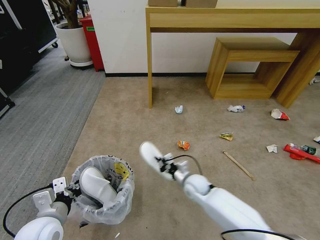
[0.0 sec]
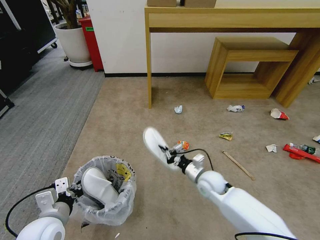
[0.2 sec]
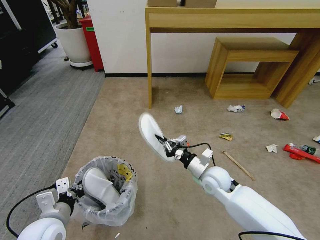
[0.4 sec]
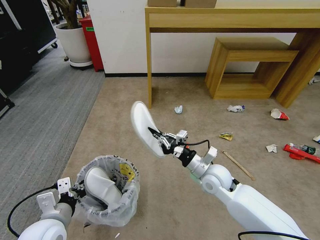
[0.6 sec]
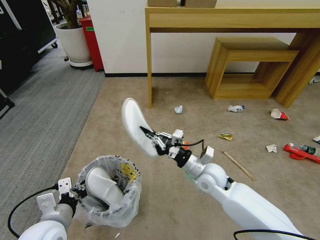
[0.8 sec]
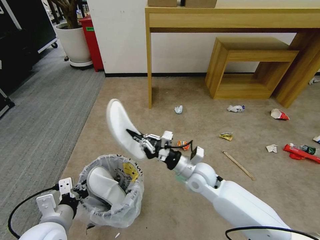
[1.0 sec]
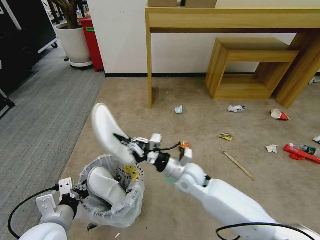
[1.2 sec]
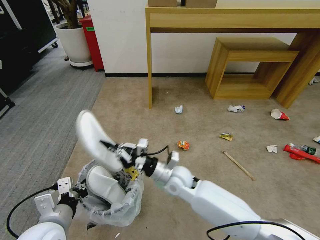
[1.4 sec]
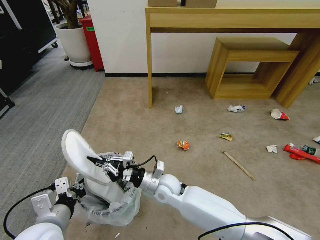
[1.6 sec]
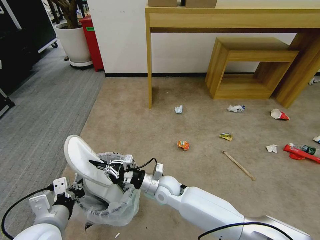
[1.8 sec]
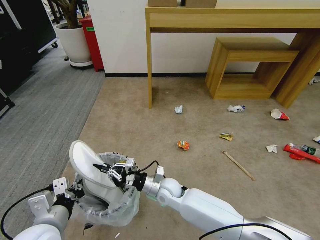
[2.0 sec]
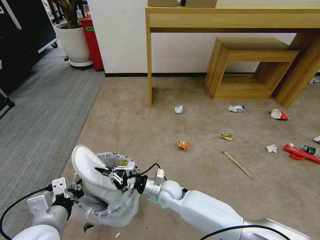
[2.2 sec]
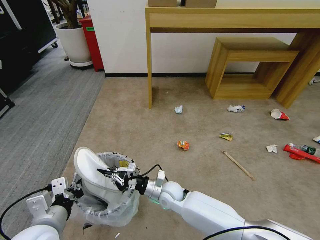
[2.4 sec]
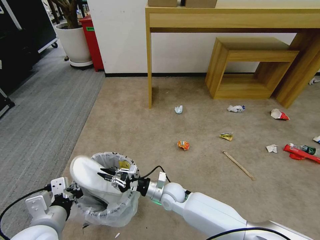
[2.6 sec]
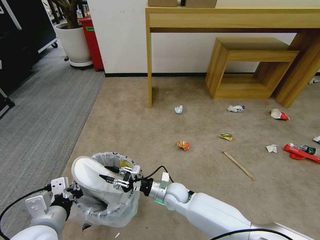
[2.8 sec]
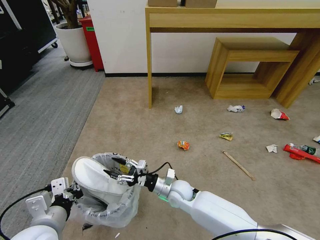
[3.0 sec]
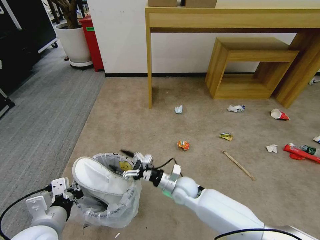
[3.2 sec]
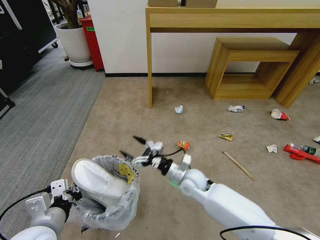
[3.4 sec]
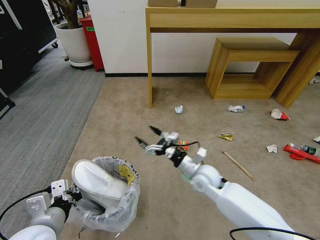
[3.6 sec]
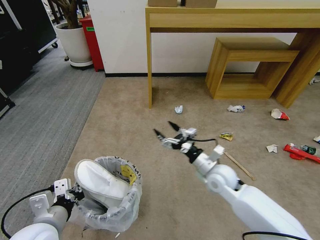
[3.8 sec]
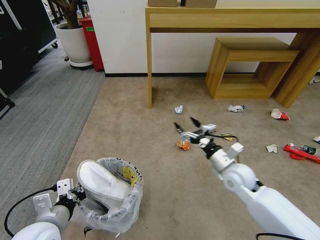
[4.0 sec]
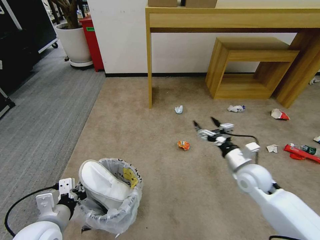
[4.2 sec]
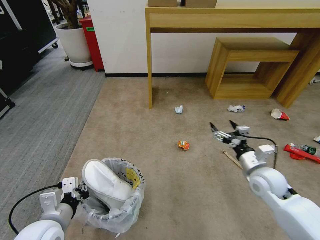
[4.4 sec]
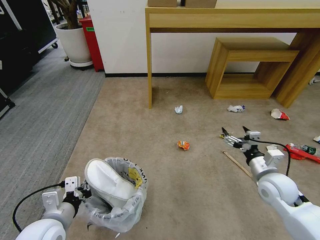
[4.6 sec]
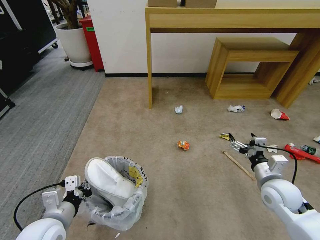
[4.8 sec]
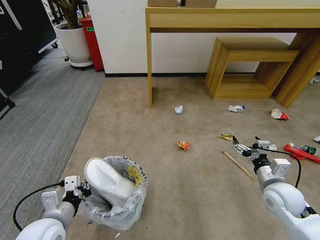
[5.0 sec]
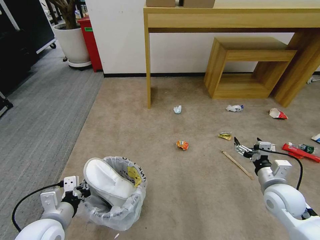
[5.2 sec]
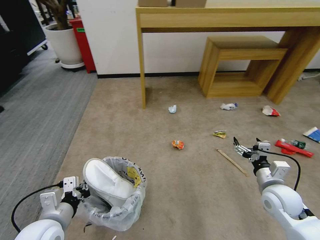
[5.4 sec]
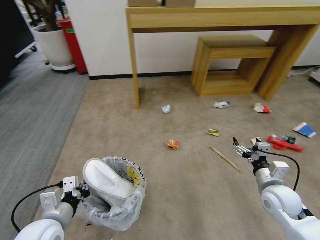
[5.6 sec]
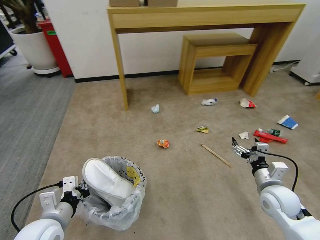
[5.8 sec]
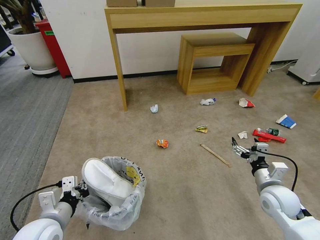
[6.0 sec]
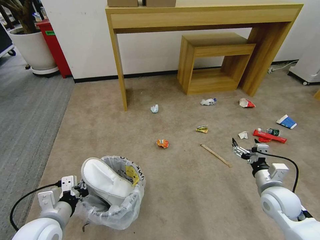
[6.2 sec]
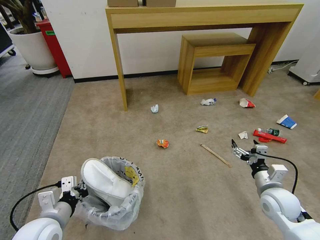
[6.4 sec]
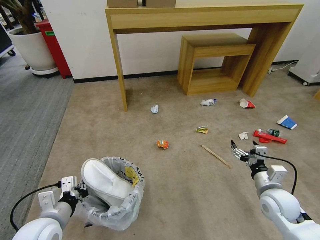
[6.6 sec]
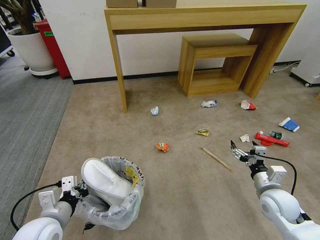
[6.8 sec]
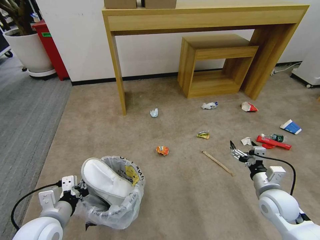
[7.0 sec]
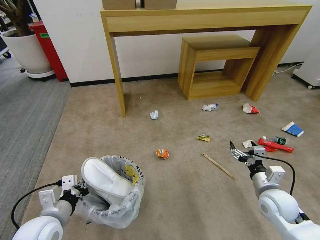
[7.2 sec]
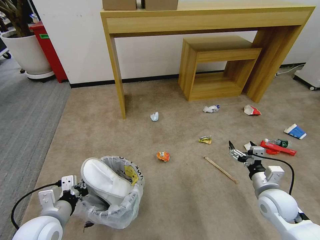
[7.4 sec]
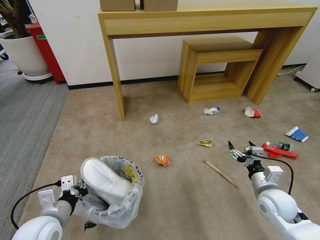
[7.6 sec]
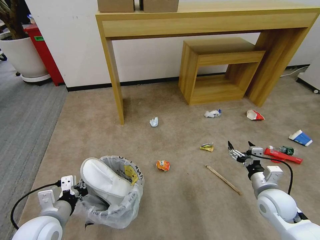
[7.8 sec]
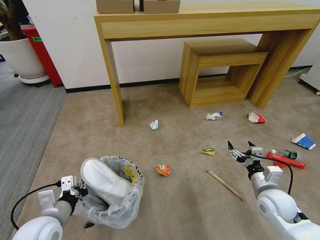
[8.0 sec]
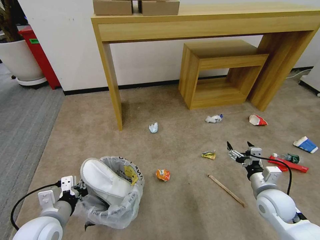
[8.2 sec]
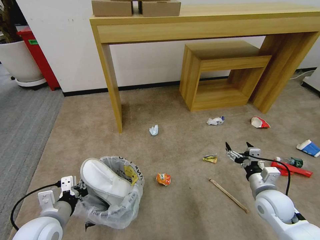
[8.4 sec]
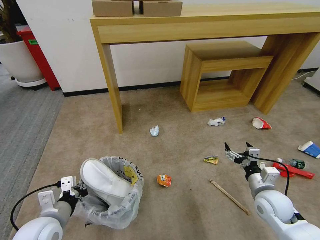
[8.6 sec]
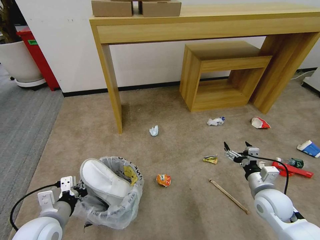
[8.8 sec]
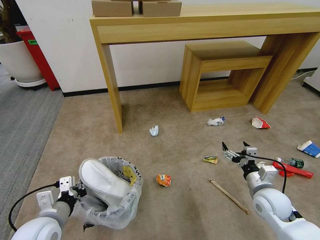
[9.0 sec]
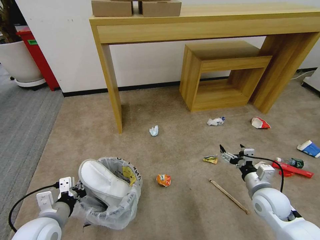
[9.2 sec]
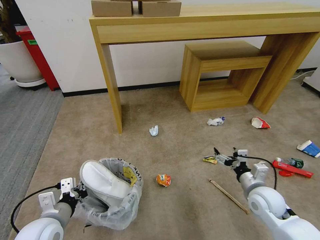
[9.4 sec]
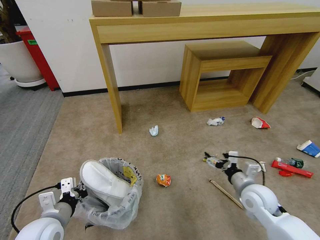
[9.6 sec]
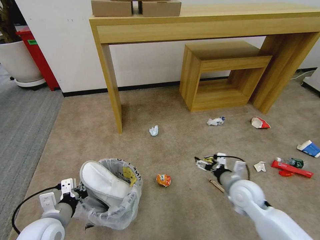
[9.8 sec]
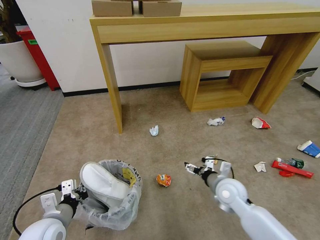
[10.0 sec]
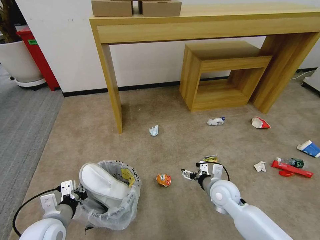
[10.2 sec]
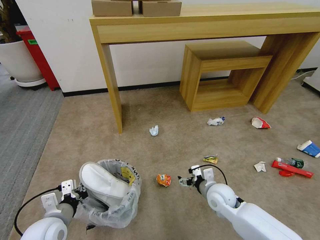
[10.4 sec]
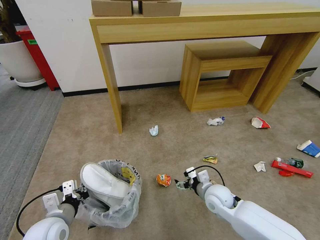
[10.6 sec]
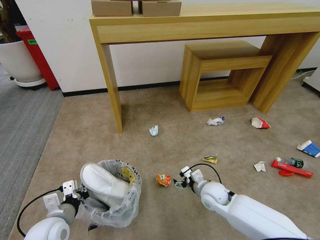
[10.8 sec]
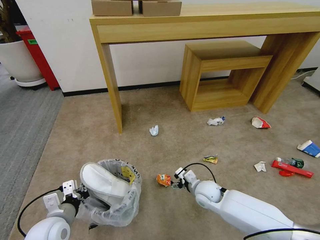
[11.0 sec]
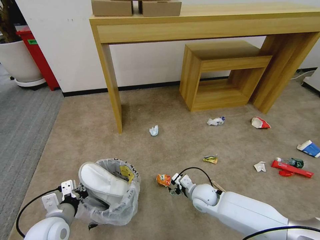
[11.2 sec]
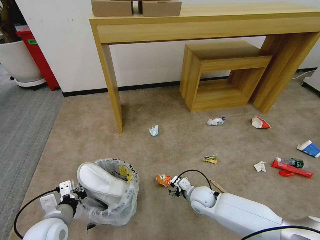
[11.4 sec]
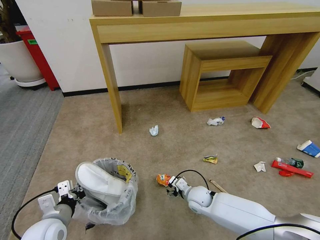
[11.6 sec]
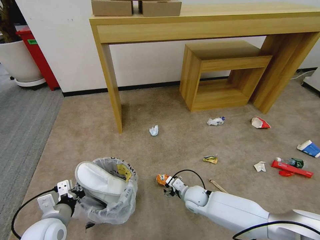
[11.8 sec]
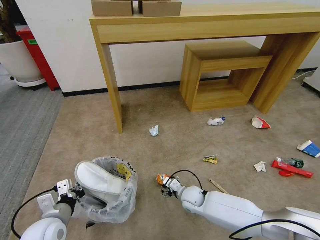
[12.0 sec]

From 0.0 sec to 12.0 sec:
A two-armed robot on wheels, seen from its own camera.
Task of the whole recording: Pick up the trash bin and place the garbage on the floor into it.
From 0.0 sec to 1.6 sec: The right gripper shifts about 15 cm to the left and upward.
From 1.6 sec to 3.0 sec: The right gripper goes approximately 5 cm downward, and opens its fingers.
From 3.0 sec to 4.4 sec: The right gripper shifts about 30 cm to the right and upward, and opens.
From 4.4 sec to 6.0 sec: The right gripper shifts by roughly 5 cm.
From 9.0 sec to 10.4 sec: The right gripper heads to the left, covering approximately 15 cm.
From 10.4 sec to 12.0 sec: The right gripper shifts approximately 15 cm downward and to the left.

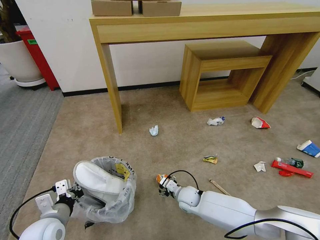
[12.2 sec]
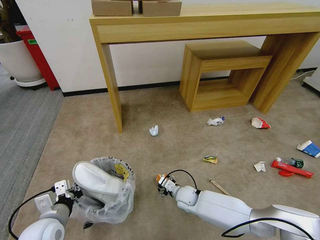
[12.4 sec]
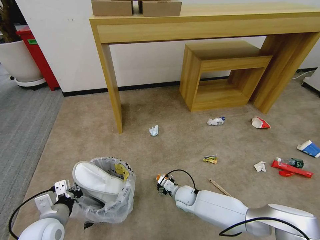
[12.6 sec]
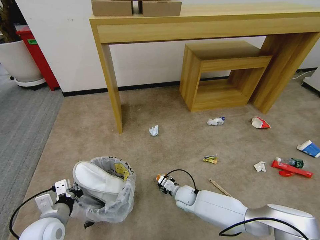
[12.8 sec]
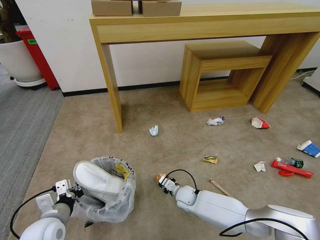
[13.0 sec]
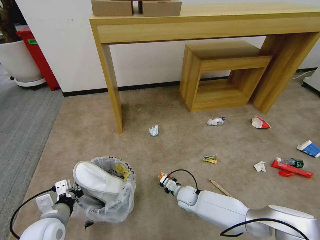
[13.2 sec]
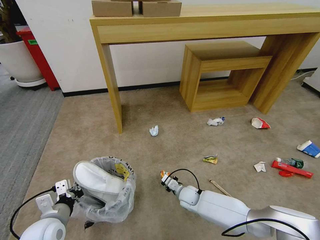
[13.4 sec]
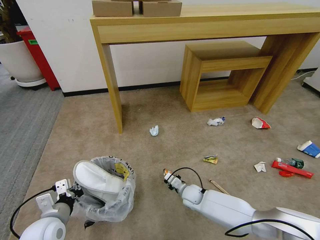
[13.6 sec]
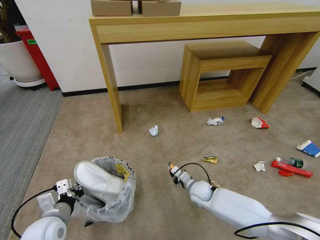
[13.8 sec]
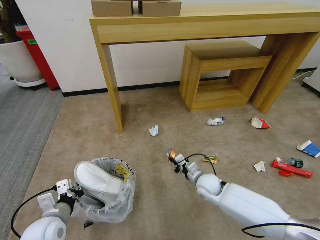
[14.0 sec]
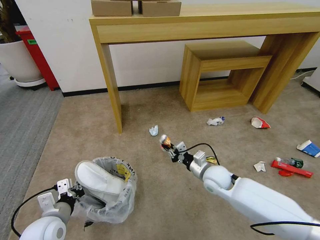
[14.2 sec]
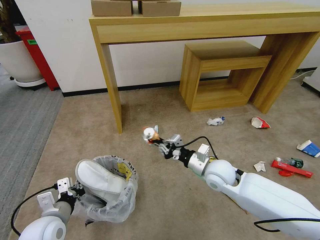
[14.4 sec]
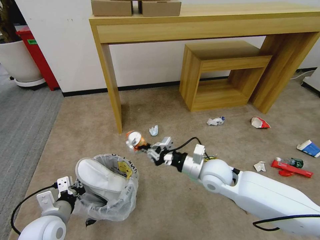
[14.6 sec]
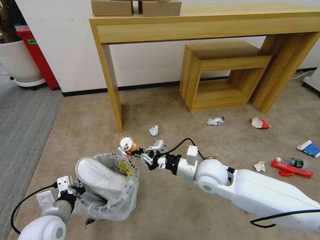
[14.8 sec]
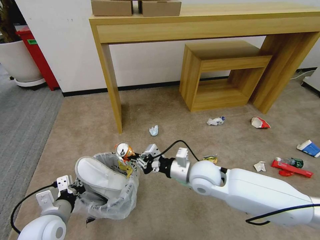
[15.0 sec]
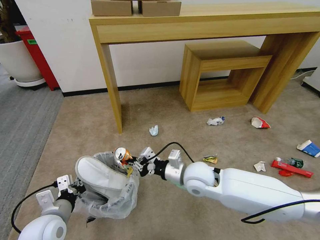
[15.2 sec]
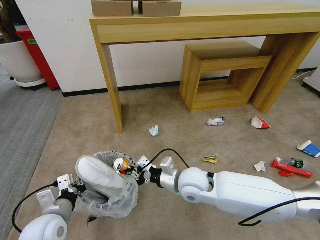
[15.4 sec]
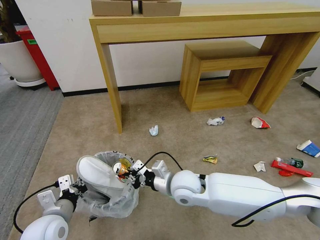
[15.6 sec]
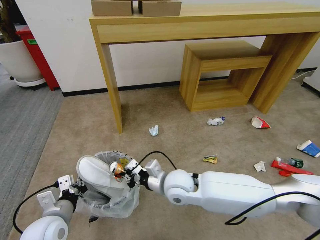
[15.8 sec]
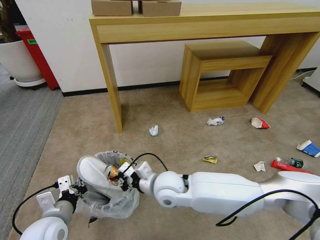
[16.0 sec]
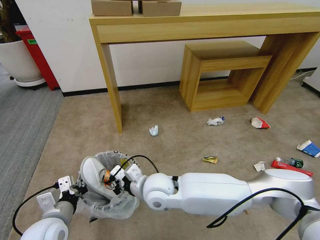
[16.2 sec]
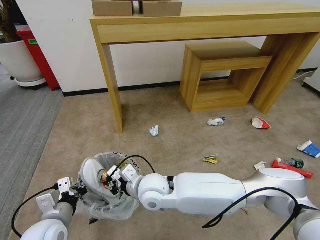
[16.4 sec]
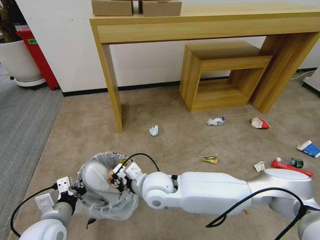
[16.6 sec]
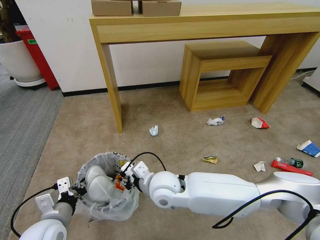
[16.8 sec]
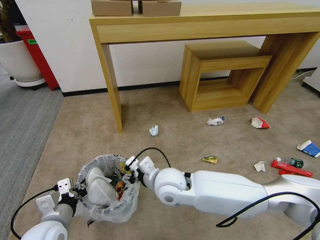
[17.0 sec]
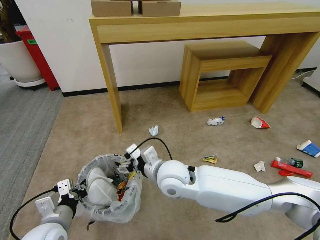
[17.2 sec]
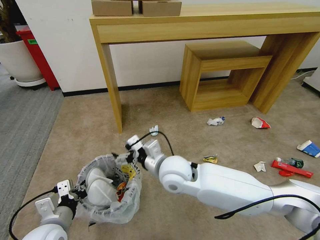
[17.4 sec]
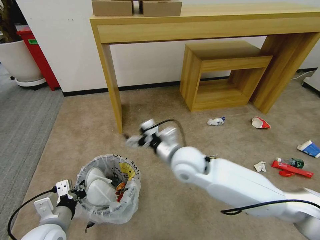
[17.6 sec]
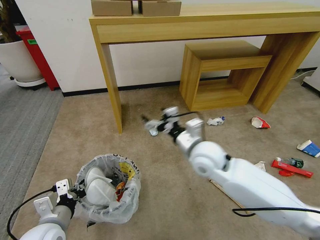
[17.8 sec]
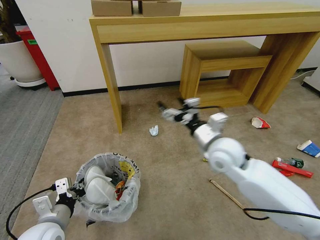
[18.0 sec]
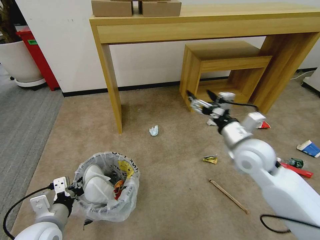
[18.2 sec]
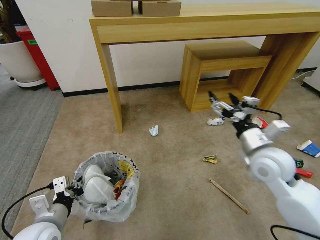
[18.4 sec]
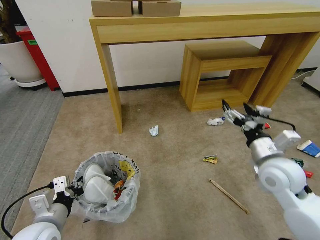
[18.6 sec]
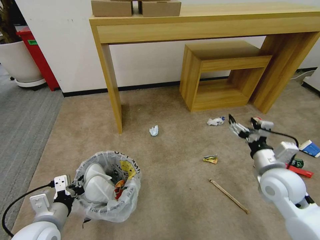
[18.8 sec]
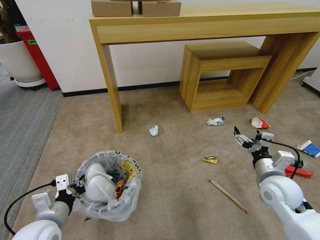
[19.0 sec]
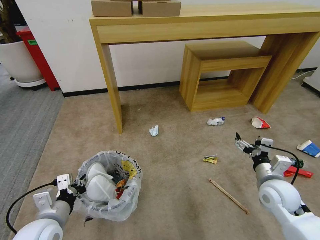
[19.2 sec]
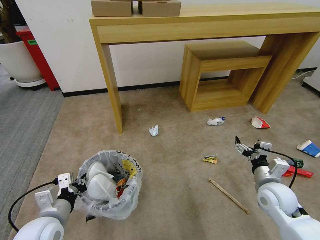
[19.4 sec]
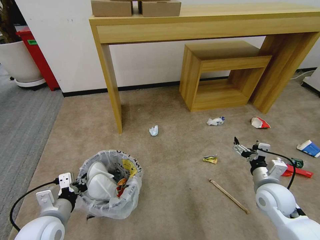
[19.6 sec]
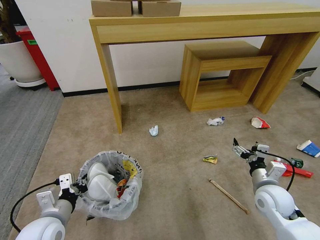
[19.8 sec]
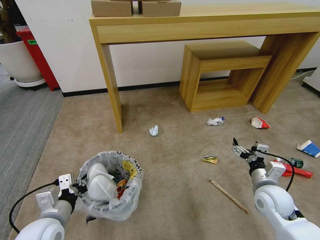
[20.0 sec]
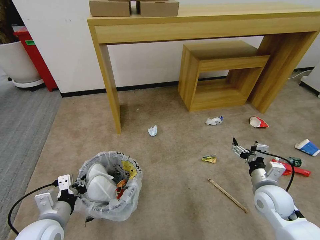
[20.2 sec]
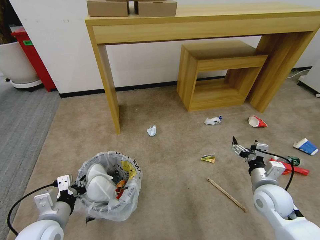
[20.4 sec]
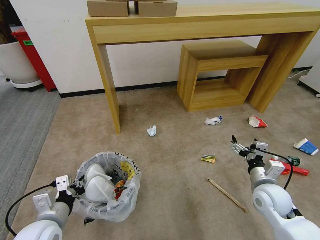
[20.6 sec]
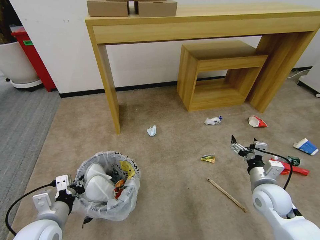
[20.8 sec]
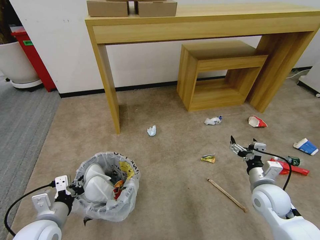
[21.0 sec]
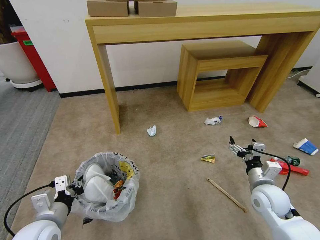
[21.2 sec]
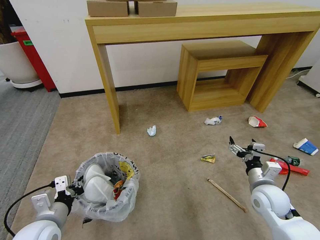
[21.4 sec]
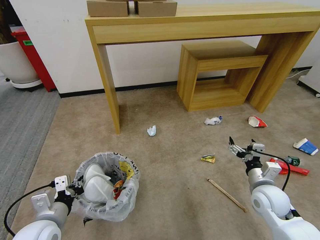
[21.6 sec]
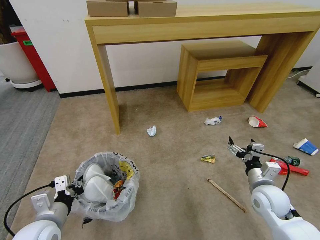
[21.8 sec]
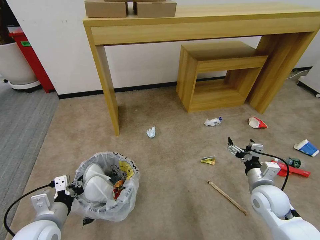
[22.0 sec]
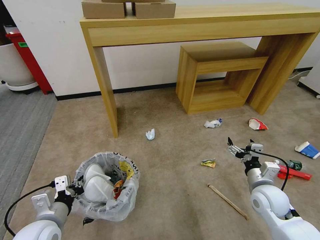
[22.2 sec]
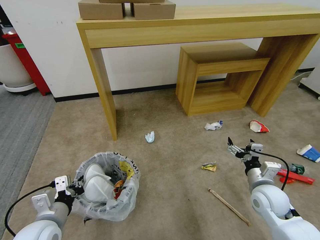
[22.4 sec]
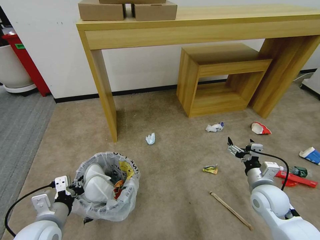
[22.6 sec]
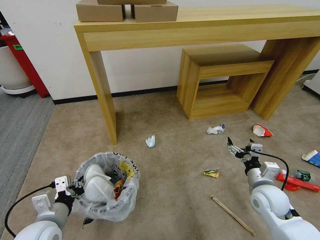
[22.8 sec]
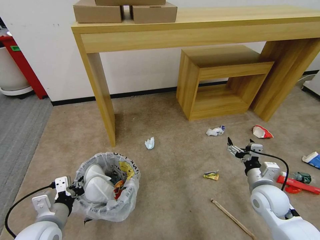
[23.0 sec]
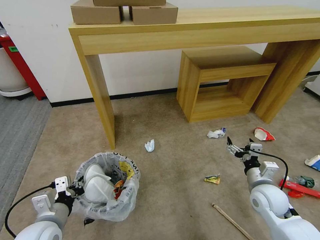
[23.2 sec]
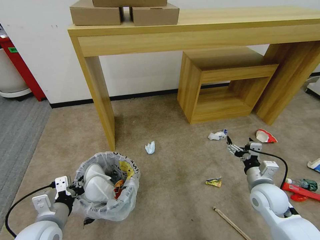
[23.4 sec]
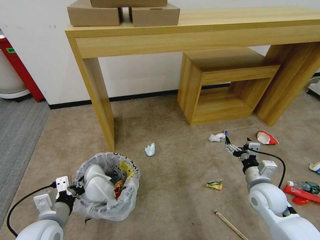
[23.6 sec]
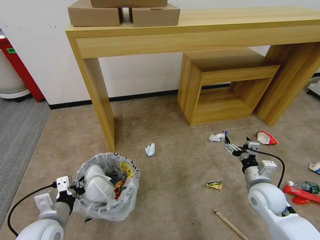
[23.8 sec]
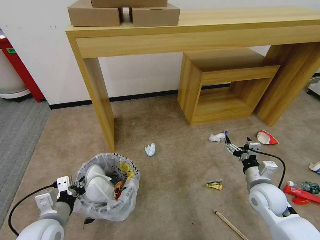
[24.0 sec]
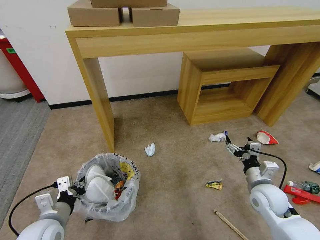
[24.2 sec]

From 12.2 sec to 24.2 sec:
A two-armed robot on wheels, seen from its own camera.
Task of the whole recording: Pick up the trash bin and place the garbage on the floor into it.
From 12.2 sec to 13.8 sec: The right gripper shifts by some 5 cm, and closes.
From 13.8 sec to 15.2 sec: The right gripper shifts approximately 20 cm upward.
From 15.2 sec to 16.6 sec: The right gripper travels to the left by roughly 10 cm.
From 16.6 sec to 18.2 sec: The right gripper shifts about 25 cm to the right, and opens.
From 18.2 sec to 19.8 sec: The right gripper shifts approximately 20 cm downward, to the right and backward.
From 19.8 sec to 21.2 sec: The two grippers keep their place.
From 21.2 sec to 22.6 sec: Neither gripper changes place.
